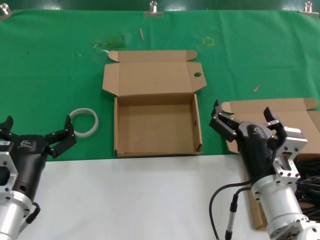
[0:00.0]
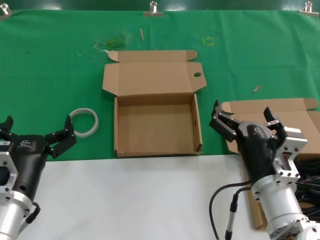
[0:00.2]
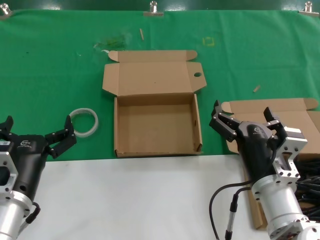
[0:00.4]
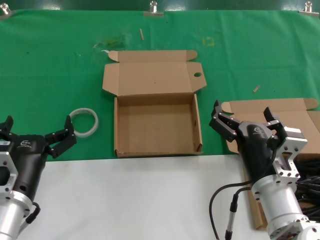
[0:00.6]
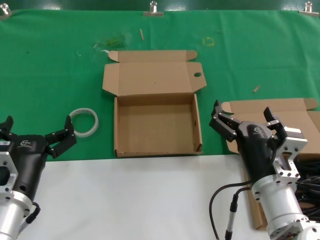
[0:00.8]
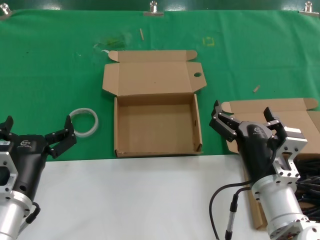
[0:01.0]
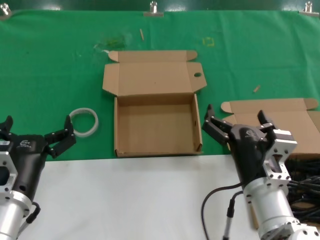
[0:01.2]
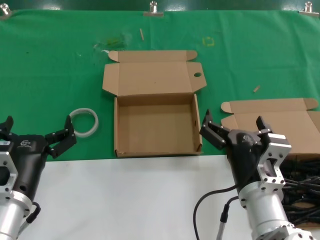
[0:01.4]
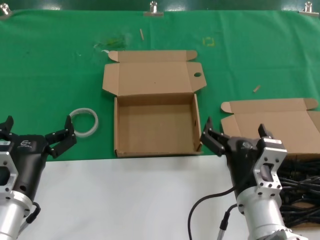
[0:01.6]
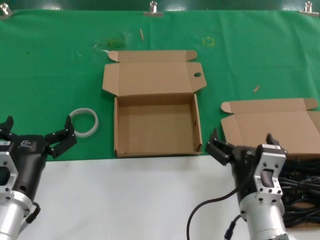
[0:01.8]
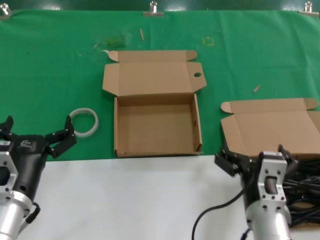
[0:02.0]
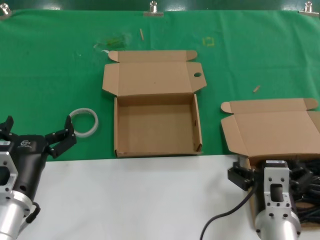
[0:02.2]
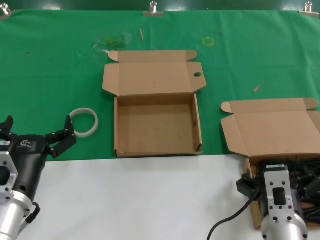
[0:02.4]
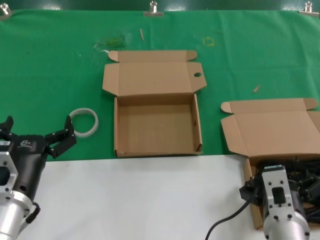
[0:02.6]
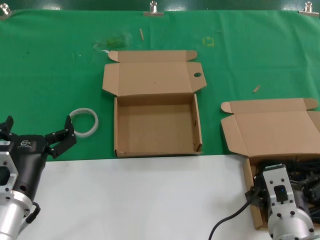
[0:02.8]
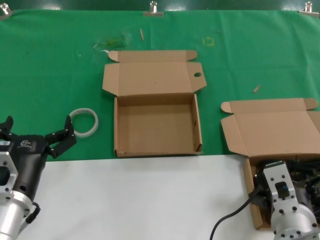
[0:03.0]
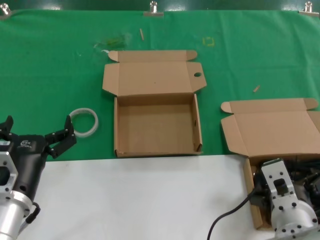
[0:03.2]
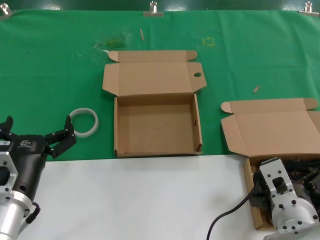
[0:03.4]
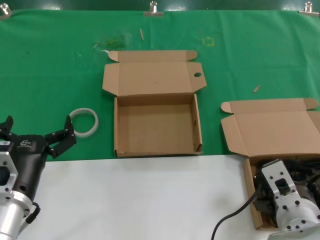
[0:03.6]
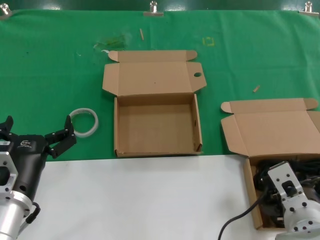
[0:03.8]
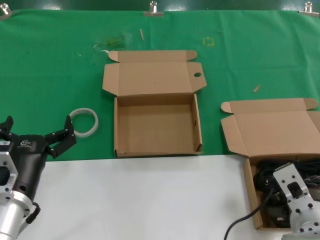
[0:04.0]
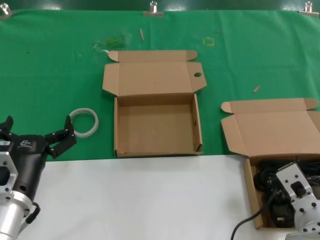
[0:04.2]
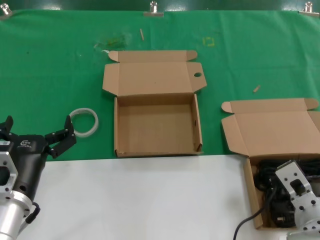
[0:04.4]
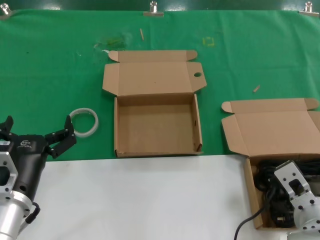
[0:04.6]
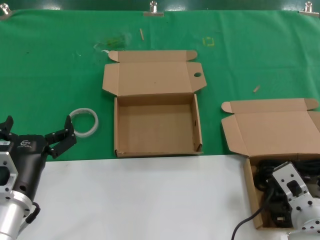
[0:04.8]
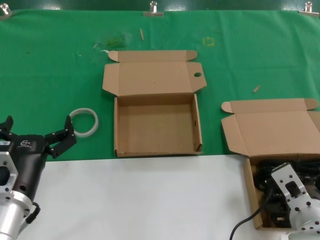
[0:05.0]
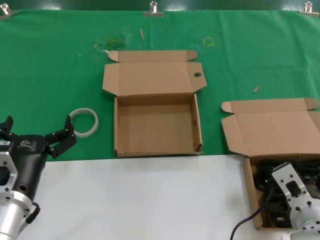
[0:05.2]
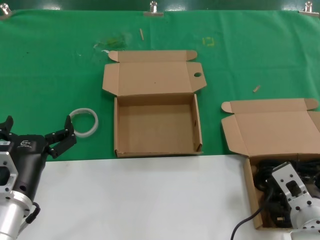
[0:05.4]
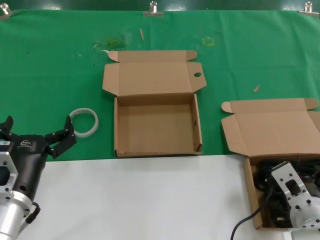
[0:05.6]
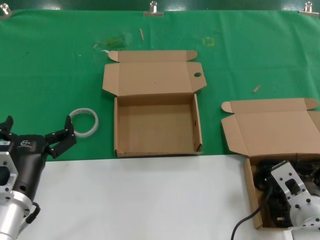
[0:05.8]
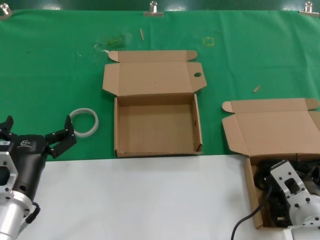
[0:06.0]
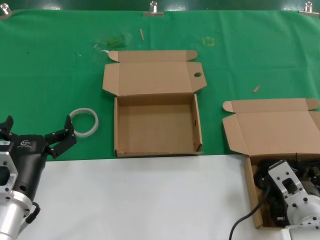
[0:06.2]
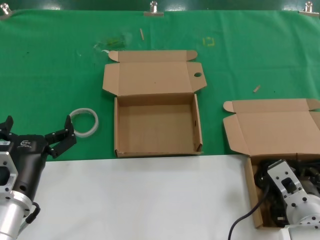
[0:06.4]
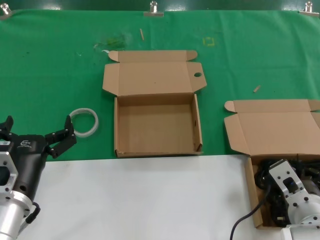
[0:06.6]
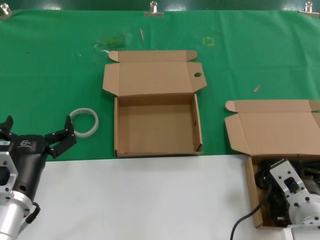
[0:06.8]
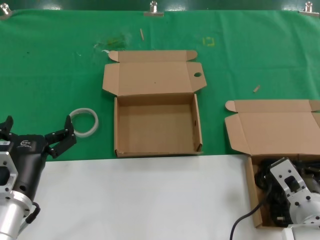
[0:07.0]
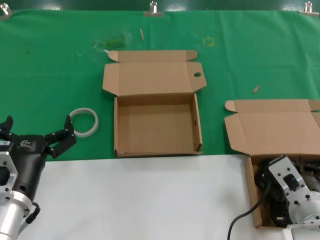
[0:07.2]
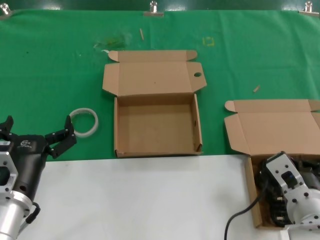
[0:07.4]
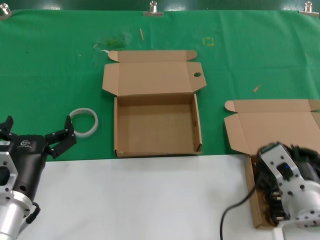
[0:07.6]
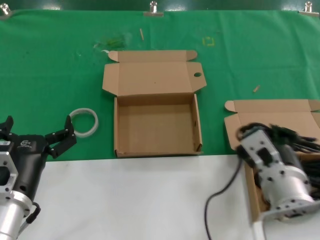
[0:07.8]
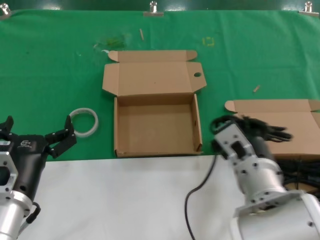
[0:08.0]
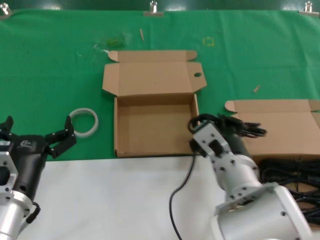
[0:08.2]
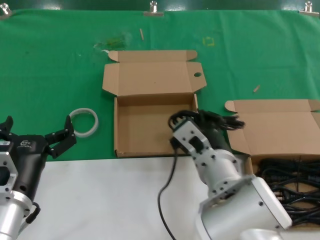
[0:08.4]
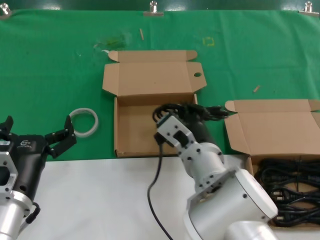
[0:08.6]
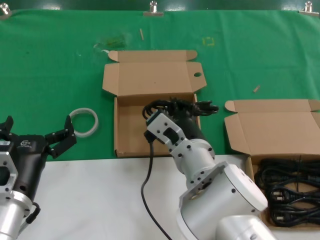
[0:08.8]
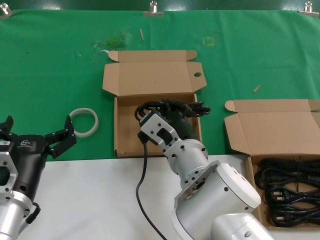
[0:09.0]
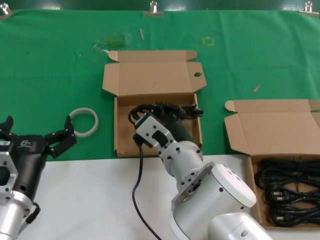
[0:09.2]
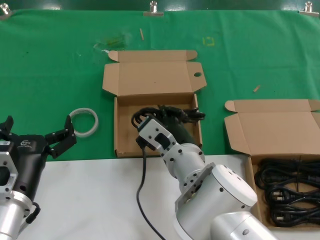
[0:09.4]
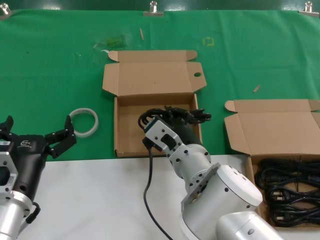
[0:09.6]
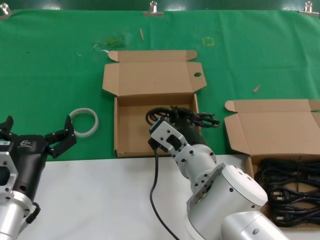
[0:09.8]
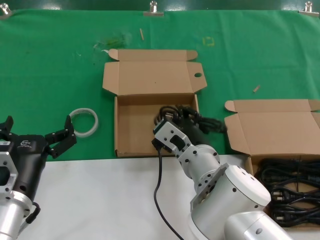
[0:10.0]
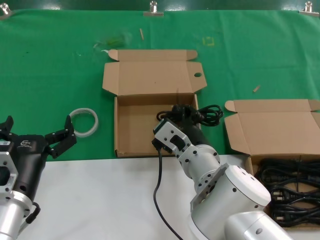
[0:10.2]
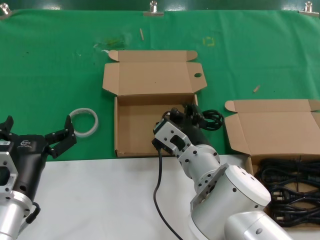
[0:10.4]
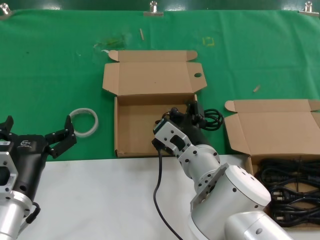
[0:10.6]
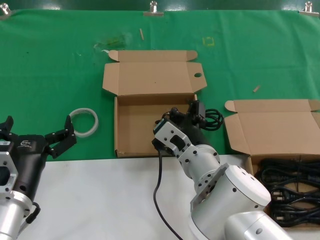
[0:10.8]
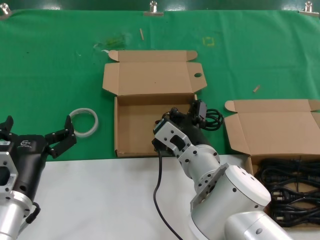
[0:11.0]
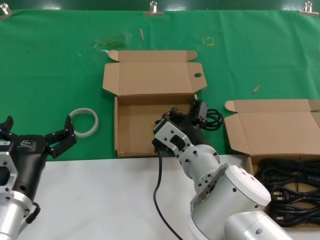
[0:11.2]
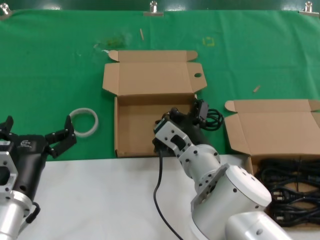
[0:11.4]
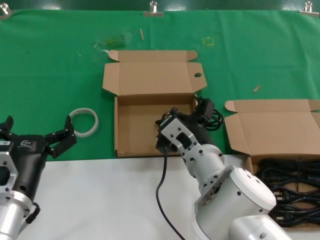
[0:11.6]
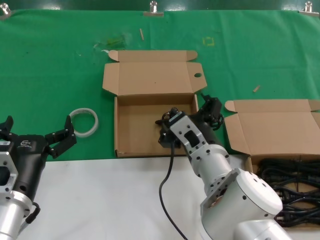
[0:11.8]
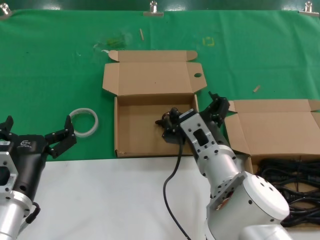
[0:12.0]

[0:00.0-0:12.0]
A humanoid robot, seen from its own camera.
Task of the whole recording: take the parts from the box containing them and put them into an empty box.
Step, 0:00.0 to 0:06.4: Grasp the data cable.
Step, 0:06.6 to 0:10.2: Place the data cable in the another box.
0:00.0 to 0:01.6: The hands move only a little.
0:03.0 to 0:04.4: The hands stay close to where they were, moving slightly.
0:04.4 to 0:06.0: The hands make only small movements.
0:06.0 to 0:07.6: The right hand moves about 5 cm.
0:07.6 to 0:09.0: The right hand heads to the left and forward, covering about 20 cm.
0:09.0 to 0:12.0: The hands move only a little.

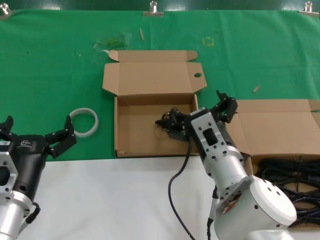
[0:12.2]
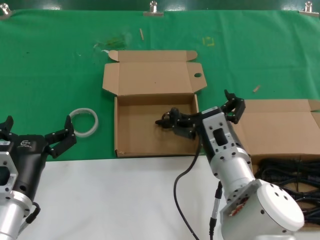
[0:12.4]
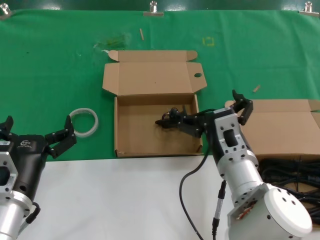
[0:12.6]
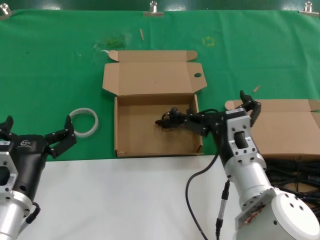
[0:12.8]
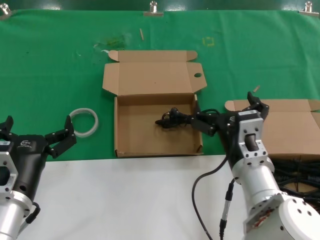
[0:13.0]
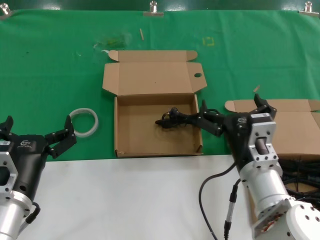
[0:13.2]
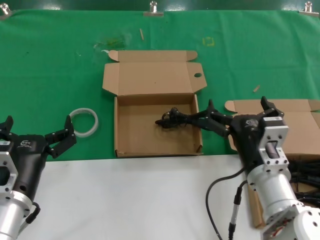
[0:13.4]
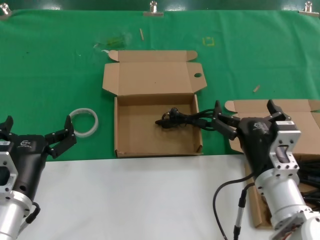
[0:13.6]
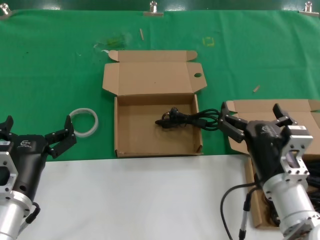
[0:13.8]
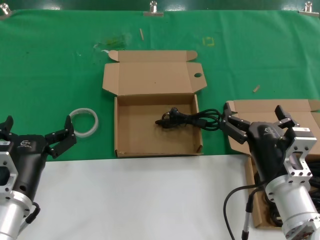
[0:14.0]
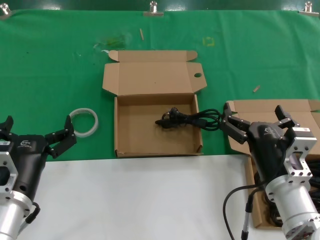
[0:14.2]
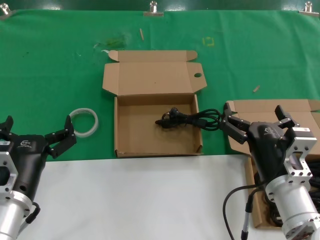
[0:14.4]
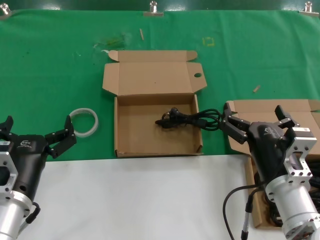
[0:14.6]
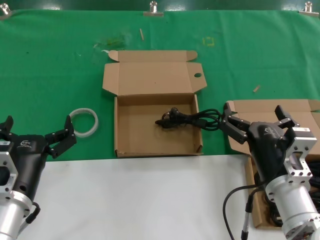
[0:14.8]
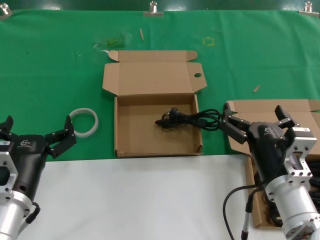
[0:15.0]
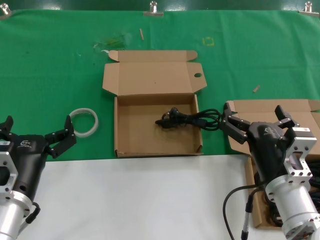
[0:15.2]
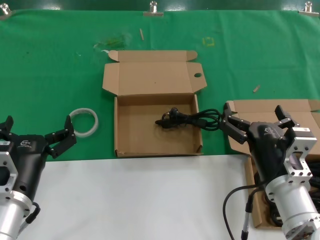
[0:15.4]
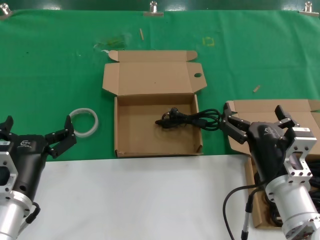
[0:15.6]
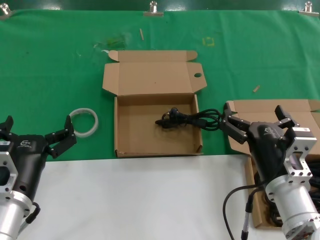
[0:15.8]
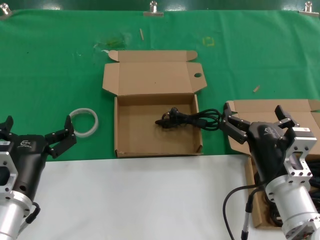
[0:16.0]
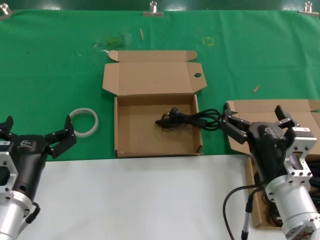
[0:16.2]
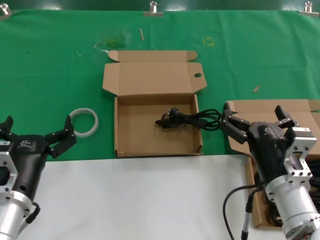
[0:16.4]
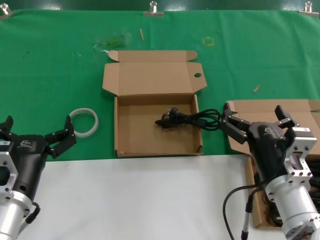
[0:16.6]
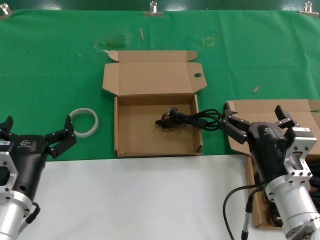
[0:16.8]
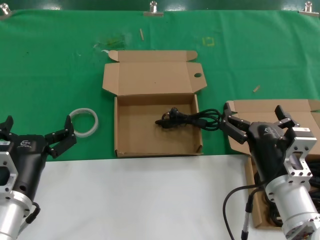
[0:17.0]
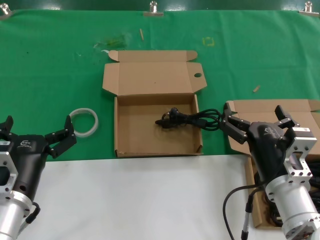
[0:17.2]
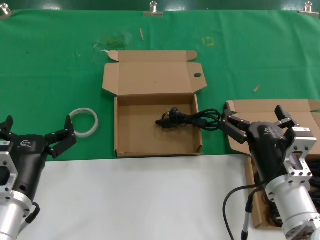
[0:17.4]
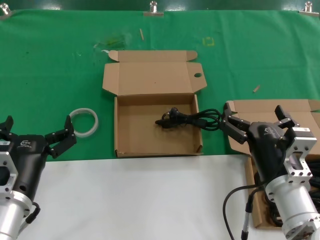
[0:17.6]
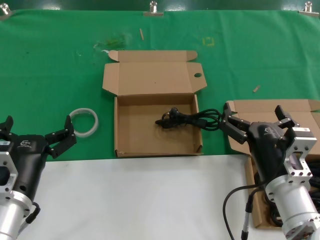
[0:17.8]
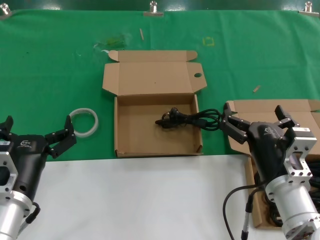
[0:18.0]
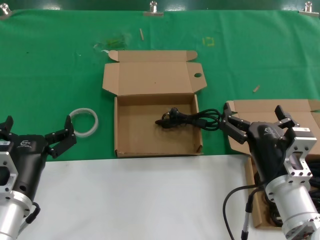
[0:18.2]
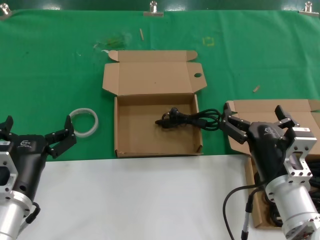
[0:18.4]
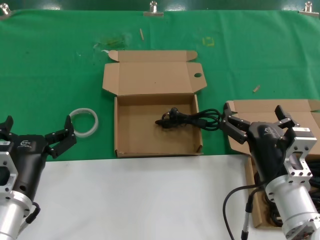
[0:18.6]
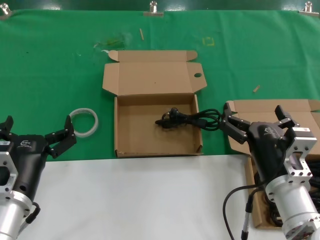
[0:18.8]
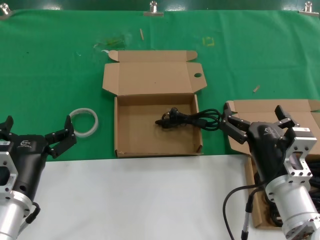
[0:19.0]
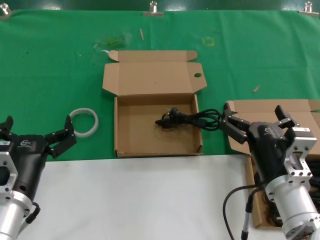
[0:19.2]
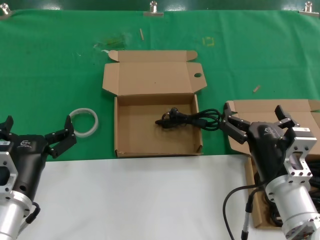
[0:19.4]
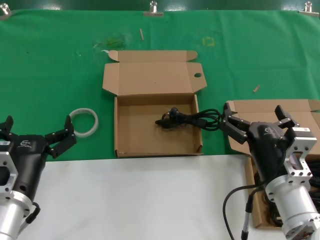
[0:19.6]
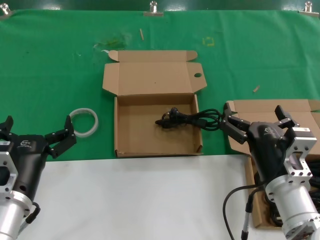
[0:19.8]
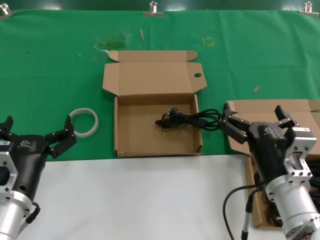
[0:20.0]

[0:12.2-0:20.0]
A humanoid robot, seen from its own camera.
Task of the whole recording: take the parts from the box containing them and put them into an empty box.
0:12.2 to 0:13.8: The right hand goes approximately 10 cm to the right and backward.
0:13.8 to 0:20.0: Both hands stay about where they are.

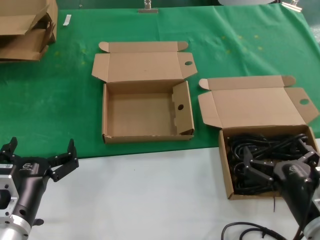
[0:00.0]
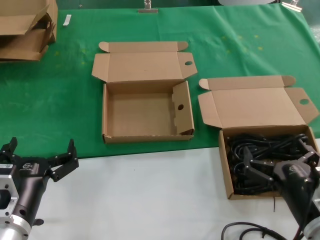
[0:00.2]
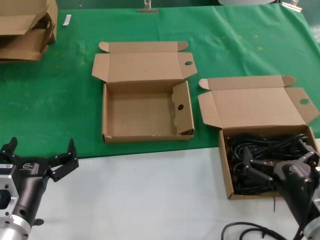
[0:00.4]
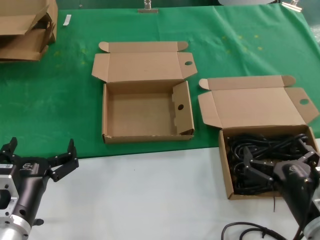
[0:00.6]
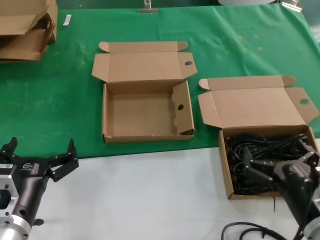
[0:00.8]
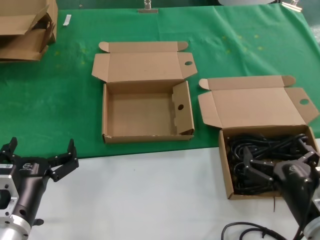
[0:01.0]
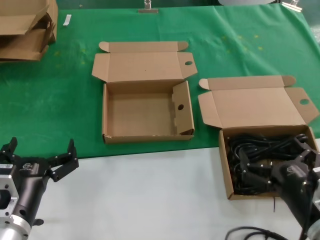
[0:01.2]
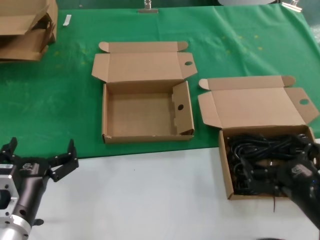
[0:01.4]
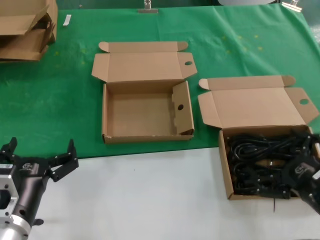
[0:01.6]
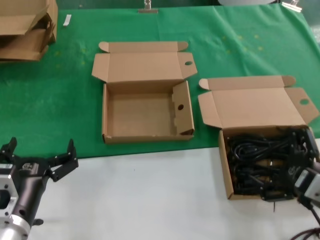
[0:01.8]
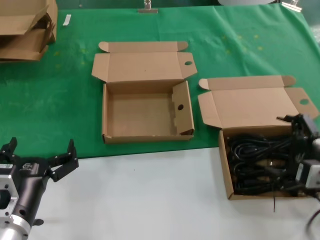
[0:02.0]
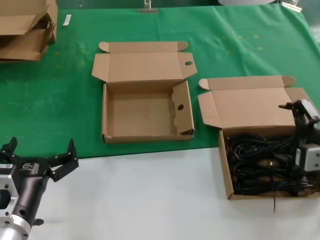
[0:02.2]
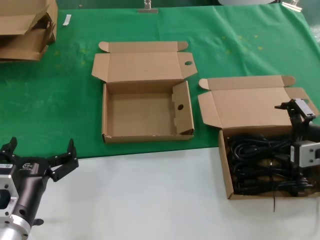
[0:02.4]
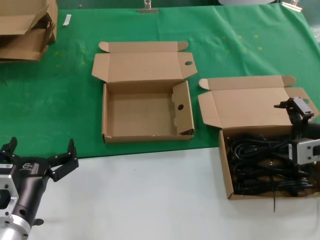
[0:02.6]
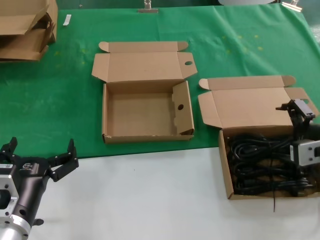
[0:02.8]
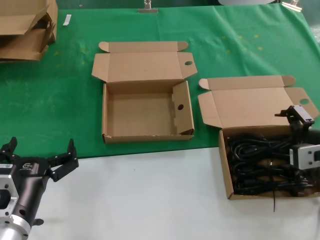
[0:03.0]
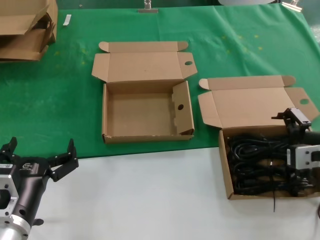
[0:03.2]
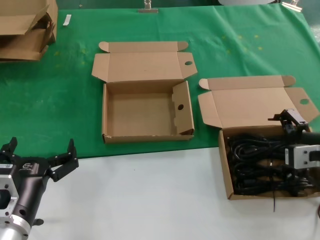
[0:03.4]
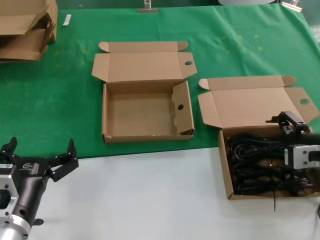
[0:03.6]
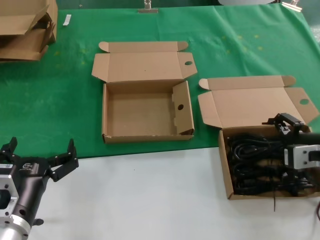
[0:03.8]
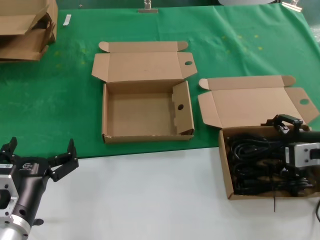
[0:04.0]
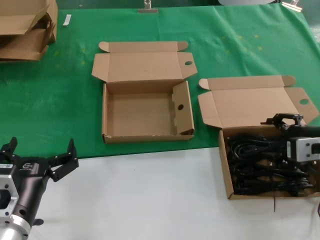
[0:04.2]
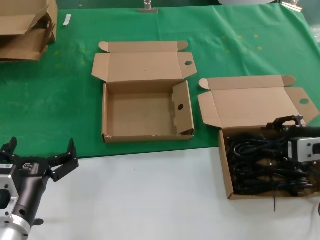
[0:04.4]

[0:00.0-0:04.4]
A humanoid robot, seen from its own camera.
Task of the whole recording: take the parts from the box containing them and put them into an empty box.
0:00.0 to 0:01.4: The hands move only a little.
0:01.4 to 0:03.0: The right hand goes approximately 15 cm forward and upward.
0:03.0 to 0:04.4: The hands move only a little.
